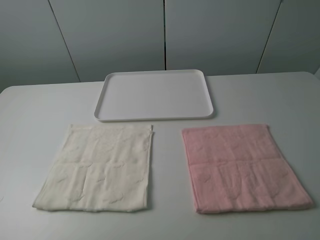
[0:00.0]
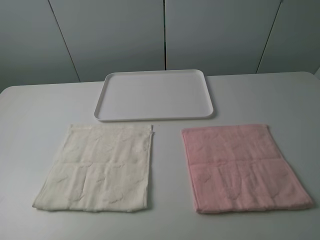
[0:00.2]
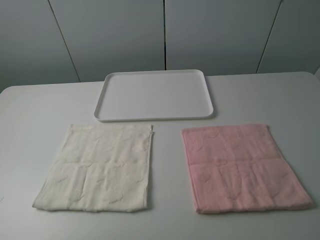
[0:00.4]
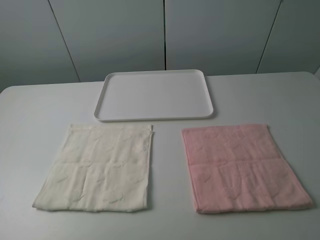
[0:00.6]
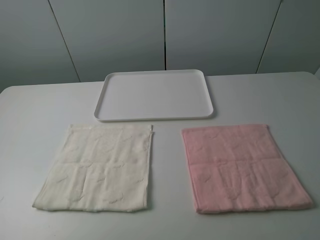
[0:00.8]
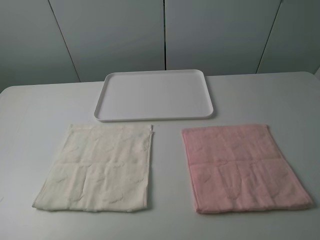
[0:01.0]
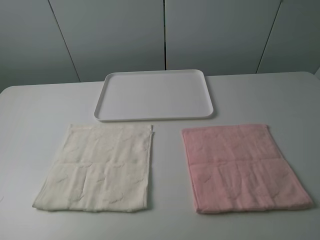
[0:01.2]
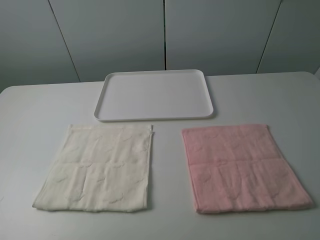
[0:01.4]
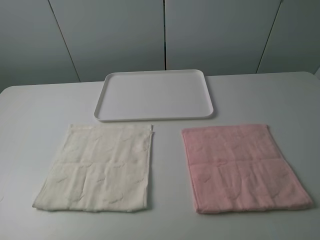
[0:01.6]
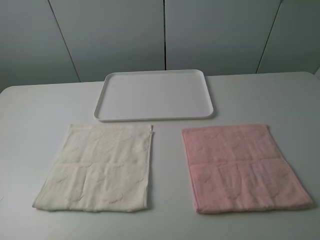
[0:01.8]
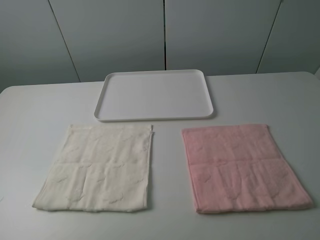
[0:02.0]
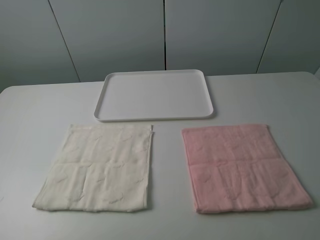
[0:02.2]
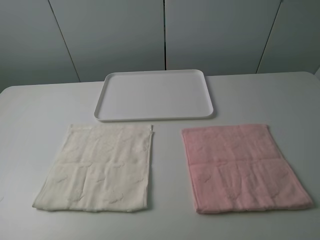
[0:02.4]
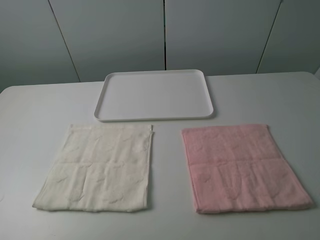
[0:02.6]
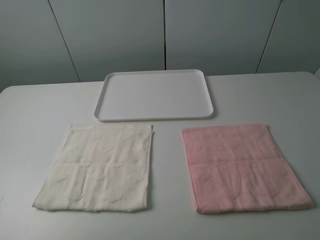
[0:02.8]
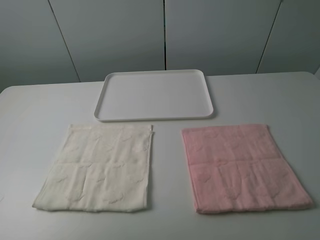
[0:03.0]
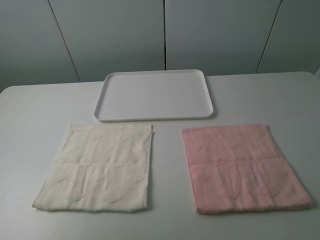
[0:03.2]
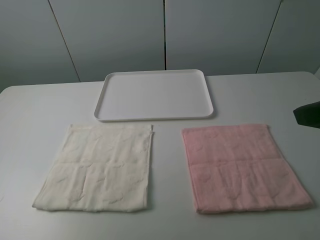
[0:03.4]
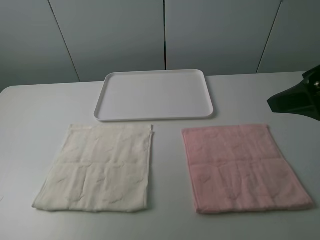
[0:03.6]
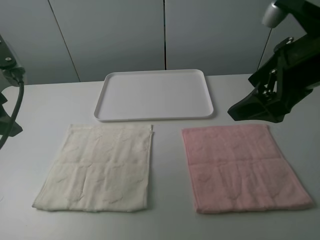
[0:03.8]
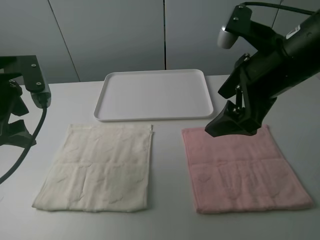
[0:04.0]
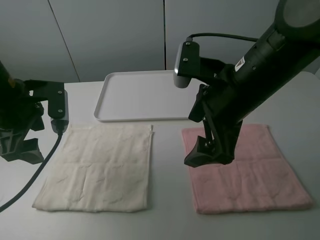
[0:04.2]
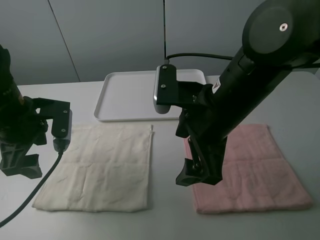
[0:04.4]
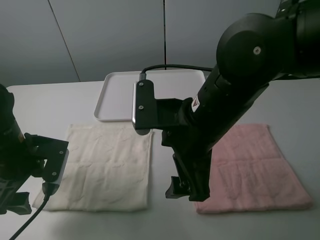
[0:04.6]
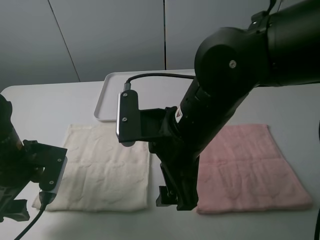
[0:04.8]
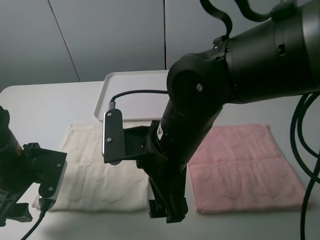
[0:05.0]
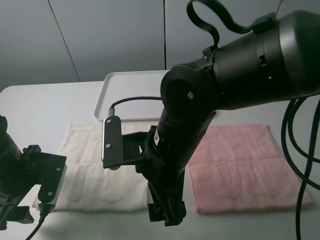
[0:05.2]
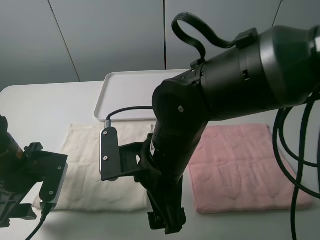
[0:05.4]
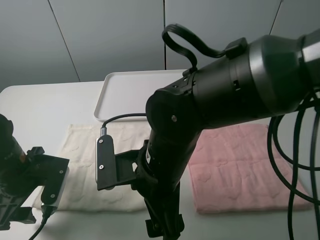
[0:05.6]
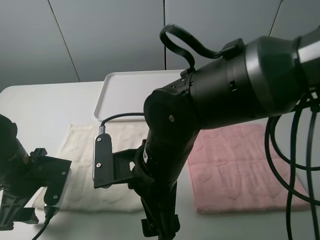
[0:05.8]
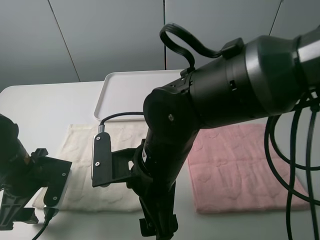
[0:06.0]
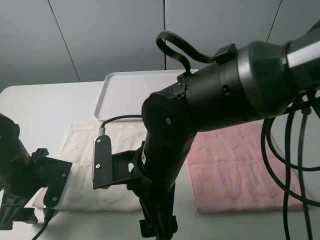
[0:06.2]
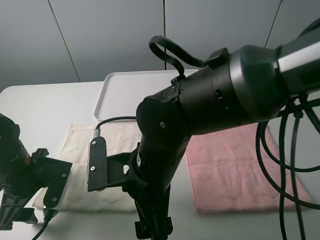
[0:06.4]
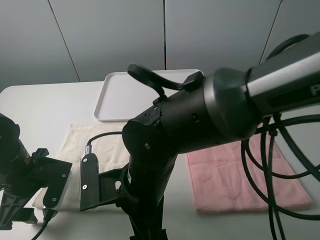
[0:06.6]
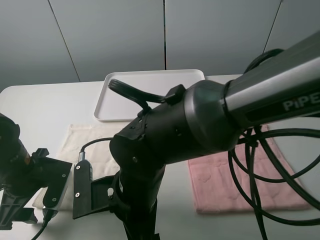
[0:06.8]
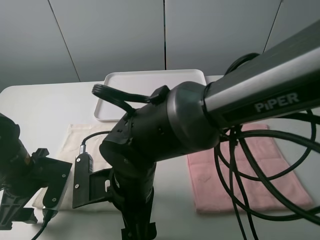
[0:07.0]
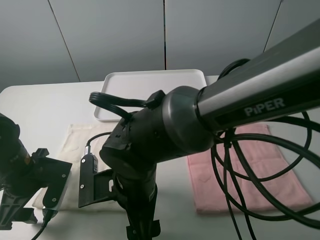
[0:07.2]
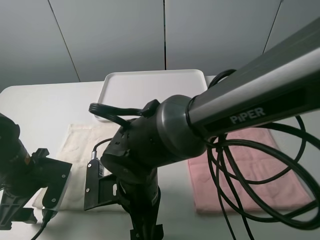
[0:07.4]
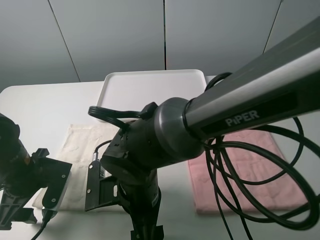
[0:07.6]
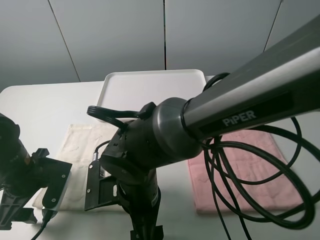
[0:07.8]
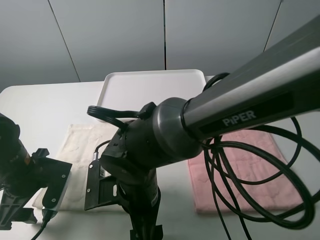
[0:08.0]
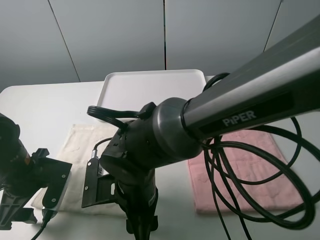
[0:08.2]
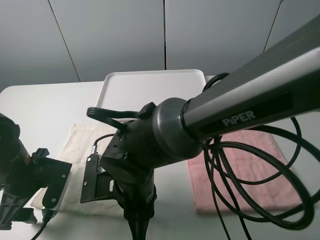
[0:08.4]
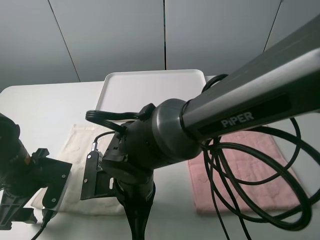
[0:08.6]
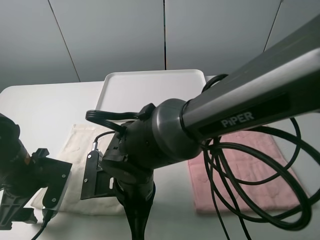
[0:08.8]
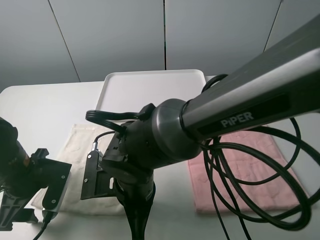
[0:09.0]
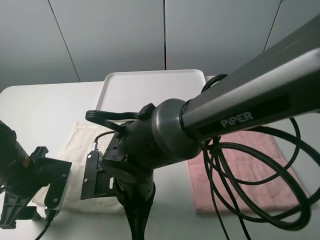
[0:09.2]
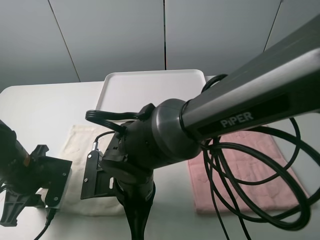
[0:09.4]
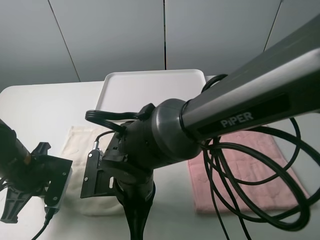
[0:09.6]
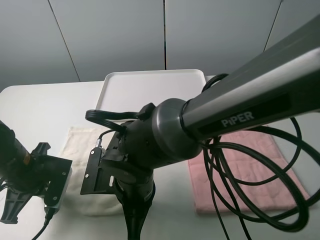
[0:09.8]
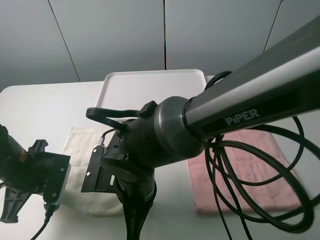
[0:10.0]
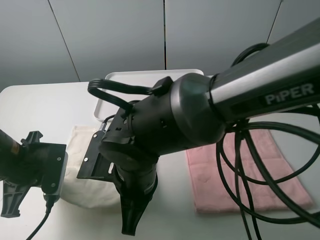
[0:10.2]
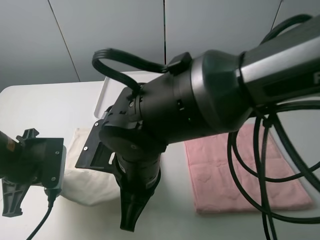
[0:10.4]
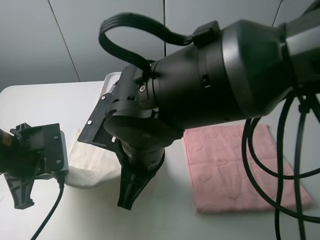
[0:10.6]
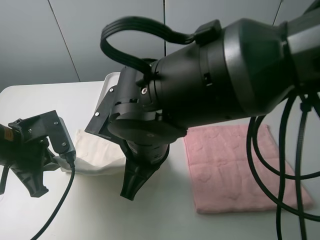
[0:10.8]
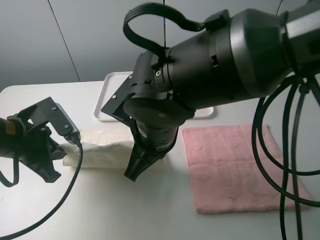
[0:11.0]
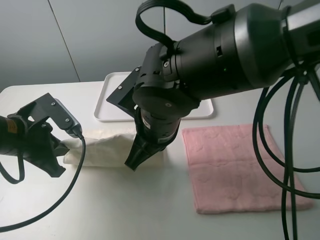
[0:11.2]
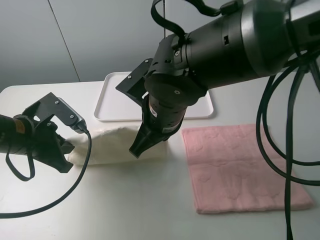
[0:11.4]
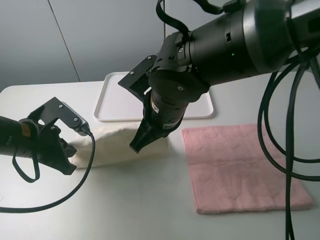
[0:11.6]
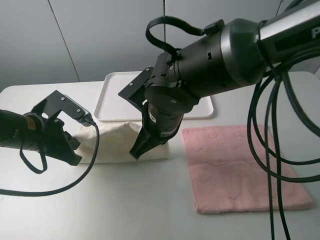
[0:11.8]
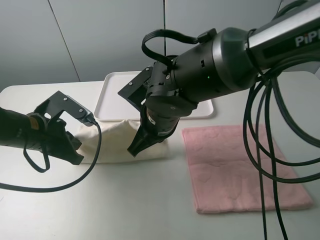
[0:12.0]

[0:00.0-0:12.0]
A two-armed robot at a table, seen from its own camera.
Task of the whole recording: fold one of the towels by two grippers and place it on the tray,then fold another towel by two grippers and place it on the folded towel.
Step, 0:00.0 to 0:09.6: Grasp the white towel with the left gripper.
0:00.0 to 0:01.6: Both grippers stay about where they are.
0:03.0 to 0:04.4: The left gripper moves forward, downward and to the right, about 25 cm. Meanwhile the right gripper goes some 25 cm to the left and forward.
0:04.4 to 0:06.0: The left gripper travels downward by approximately 10 cm. The right gripper moves to the left and downward, roughly 10 cm.
0:06.0 to 0:07.6: The right gripper moves downward, about 5 cm.
0:07.6 to 0:09.0: The right gripper closes.
0:09.0 to 0:10.4: The left gripper closes its fingers. Meanwhile the right gripper heads upward, covering approximately 5 cm.
0:10.4 to 0:12.0: The left gripper moves about 5 cm. The right gripper shifts roughly 10 cm forward.

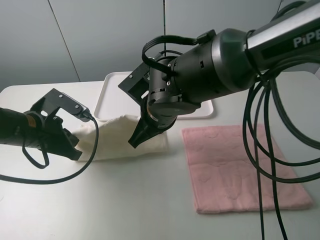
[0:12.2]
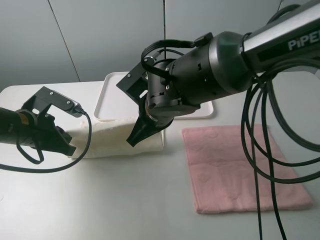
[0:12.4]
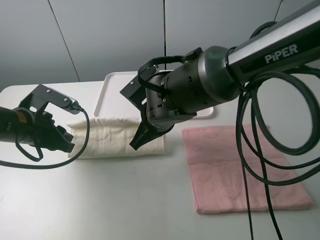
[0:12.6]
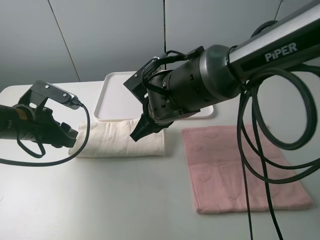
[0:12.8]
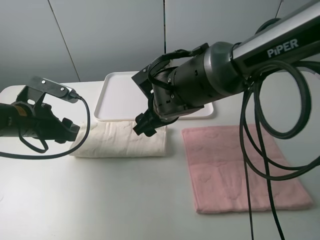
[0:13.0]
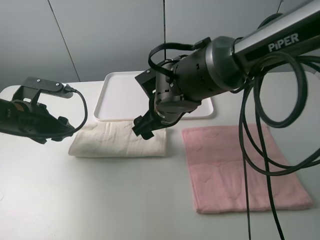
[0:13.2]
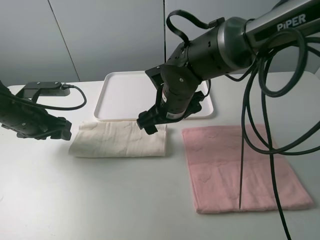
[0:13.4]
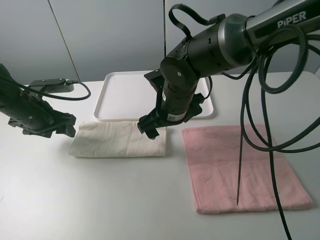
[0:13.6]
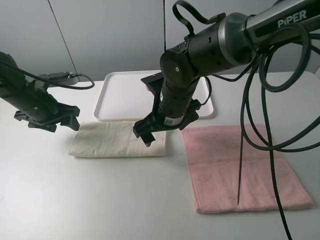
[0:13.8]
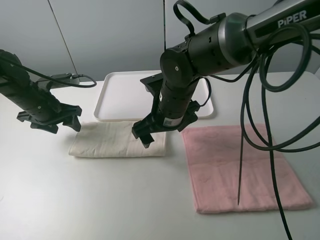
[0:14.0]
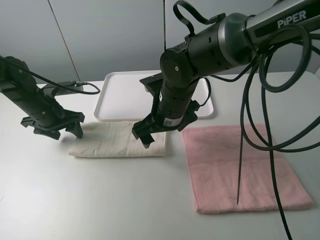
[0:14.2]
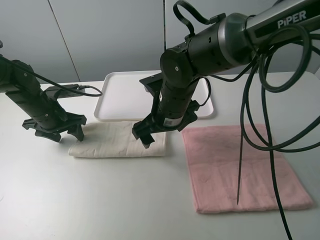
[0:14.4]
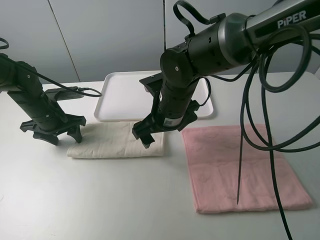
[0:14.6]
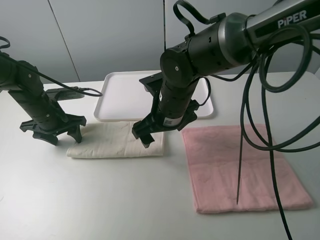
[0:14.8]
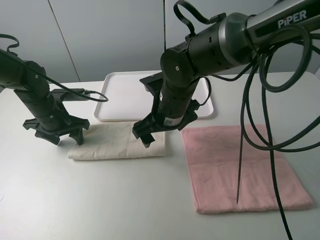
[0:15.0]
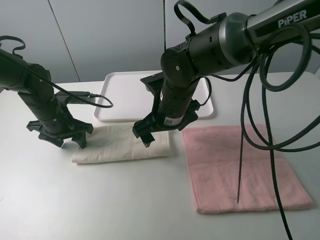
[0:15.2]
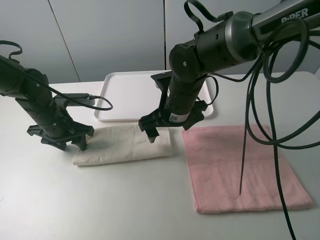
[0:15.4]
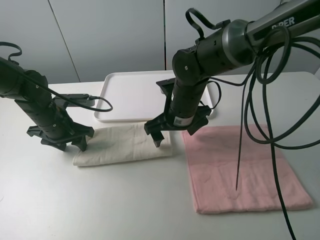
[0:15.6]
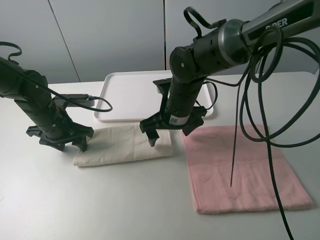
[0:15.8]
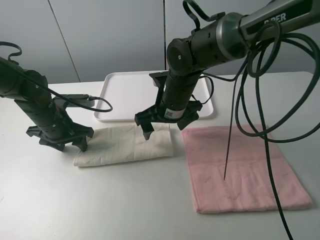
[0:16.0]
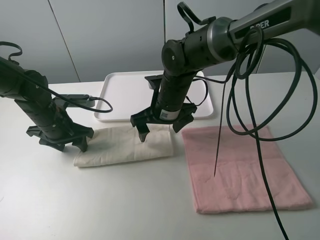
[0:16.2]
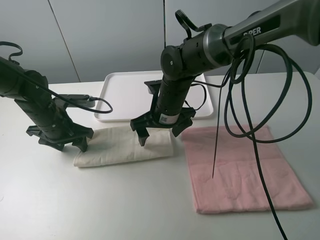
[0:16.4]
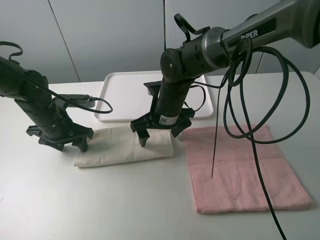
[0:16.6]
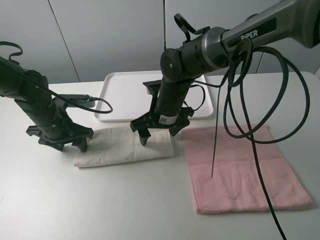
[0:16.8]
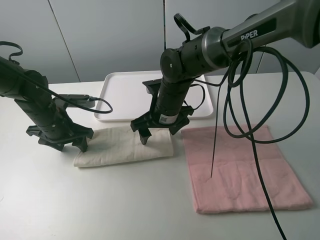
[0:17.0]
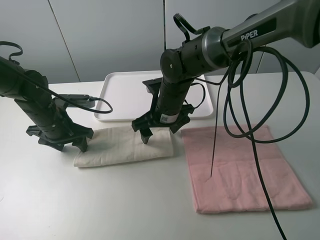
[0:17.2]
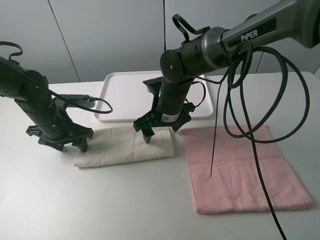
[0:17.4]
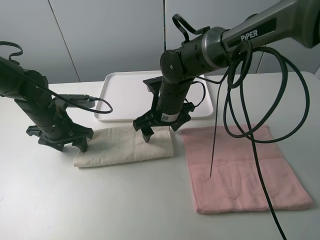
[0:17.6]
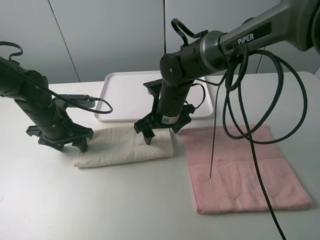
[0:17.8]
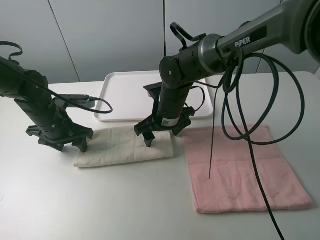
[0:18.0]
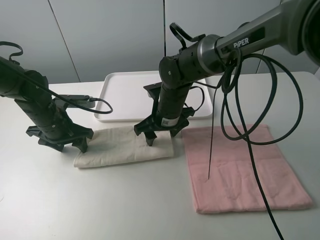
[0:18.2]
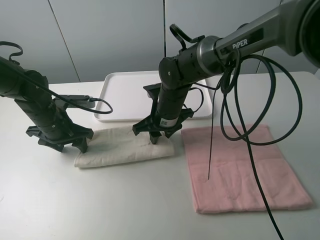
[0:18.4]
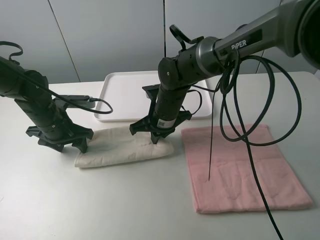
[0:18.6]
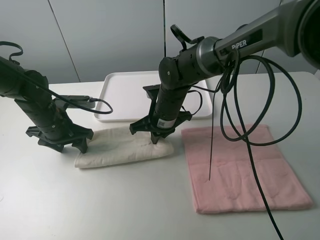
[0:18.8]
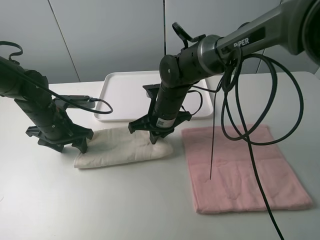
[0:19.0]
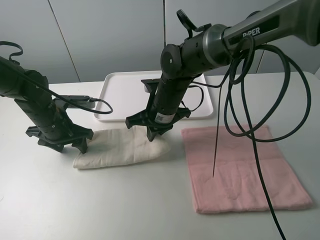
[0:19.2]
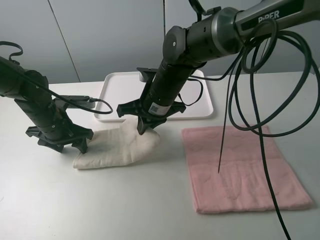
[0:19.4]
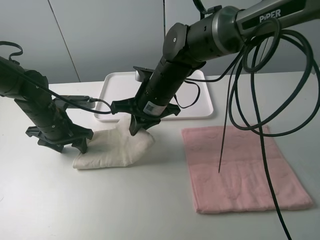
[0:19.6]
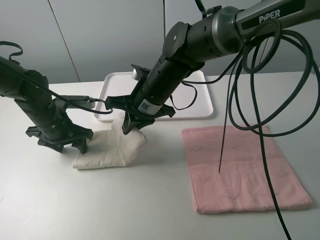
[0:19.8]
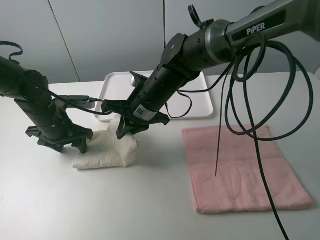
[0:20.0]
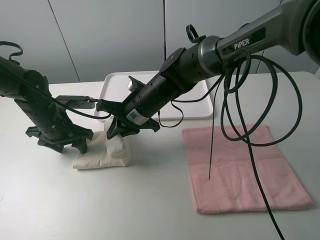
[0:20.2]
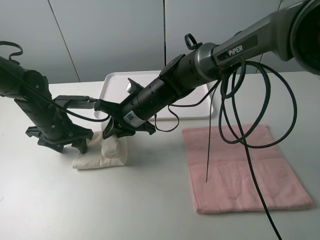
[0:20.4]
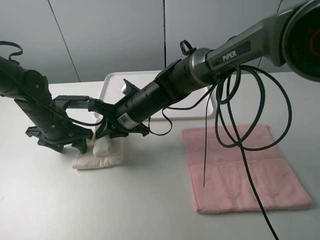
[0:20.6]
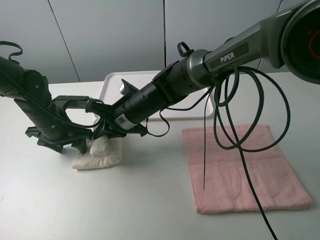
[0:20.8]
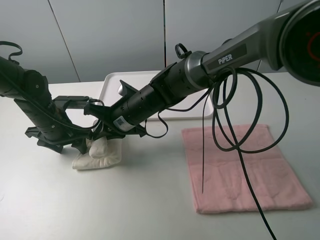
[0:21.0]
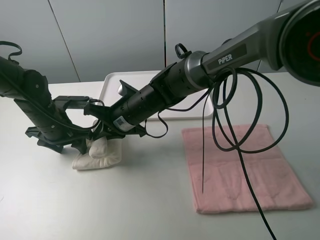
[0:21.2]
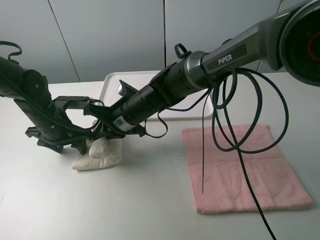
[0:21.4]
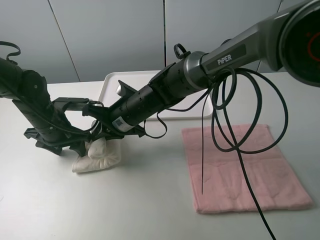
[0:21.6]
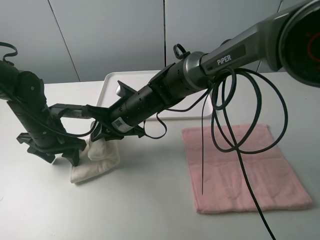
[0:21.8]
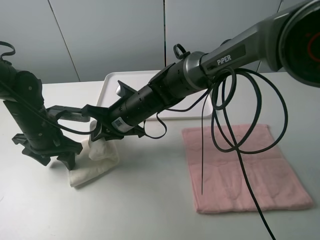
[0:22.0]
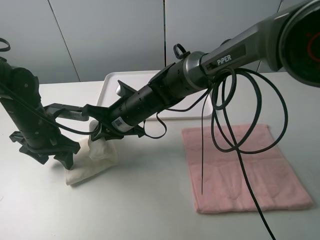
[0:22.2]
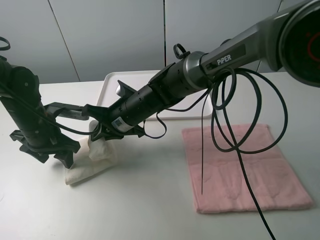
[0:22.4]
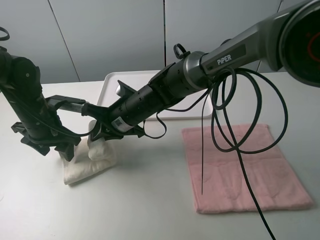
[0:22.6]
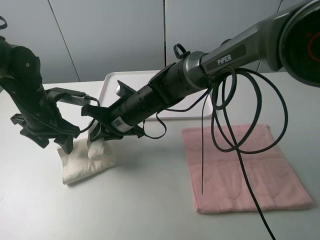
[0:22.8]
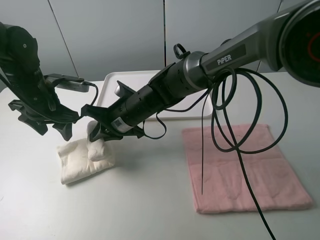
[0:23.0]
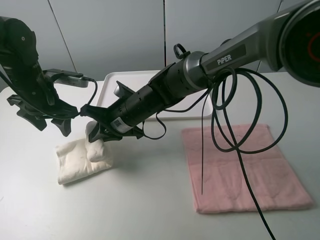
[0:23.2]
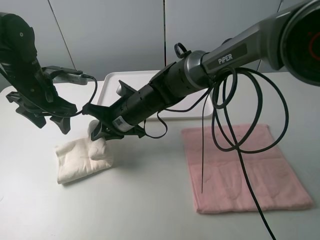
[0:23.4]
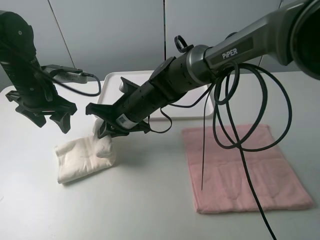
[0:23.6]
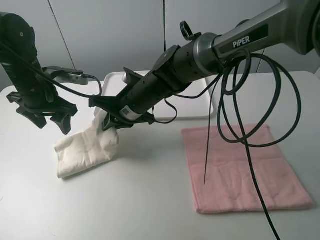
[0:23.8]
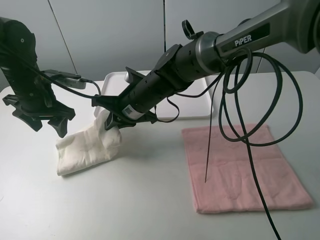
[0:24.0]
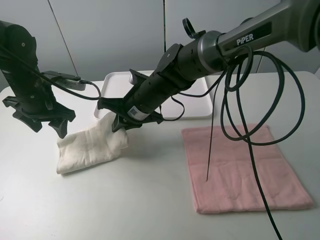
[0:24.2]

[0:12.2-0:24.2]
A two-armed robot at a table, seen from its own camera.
Task of the whole recording: fold one of the towels by two grippers and place it on the tray,then fold another towel by two grippers and place it on the folded towel.
Step, 0:13.4 to 0:14.8: Press the white towel with the left gripper.
Step, 0:15.0 to 0:18.6: Grasp the white towel with the right gripper.
0:12.2 to 0:13.8: The left gripper heads forward, covering some 10 cm, and opens; the right gripper opens its fingers.
0:13.8 to 0:15.2: The left gripper moves about 5 cm.
0:16.6 to 0:18.2: The grippers make only small movements.
0:18.2 to 0:19.8: The right gripper travels upward by roughly 5 cm, and closes up.
0:19.8 to 0:21.2: The right gripper shifts by approximately 5 cm.
0:21.2 to 0:22.6: The grippers stay close to where they were, moving slightly.
0:22.6 to 0:24.2: The left gripper ends up some 5 cm from where it was.
